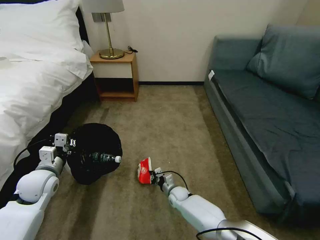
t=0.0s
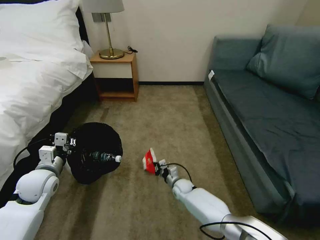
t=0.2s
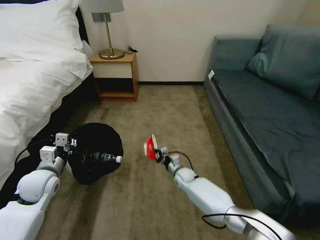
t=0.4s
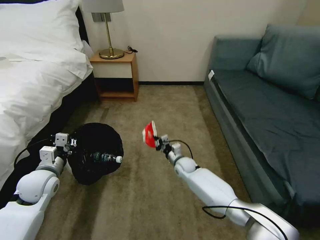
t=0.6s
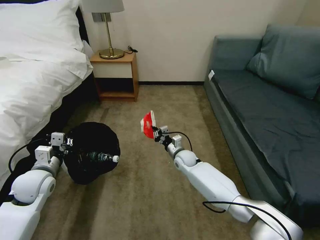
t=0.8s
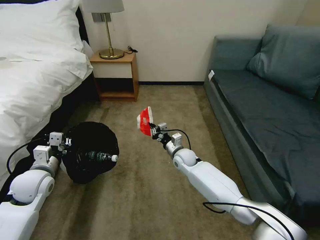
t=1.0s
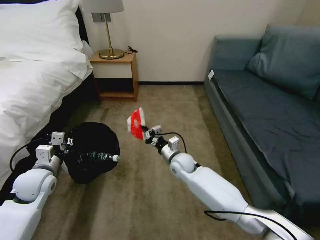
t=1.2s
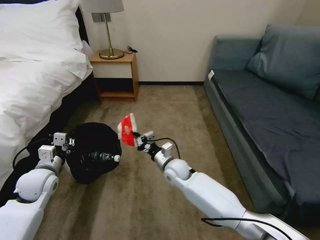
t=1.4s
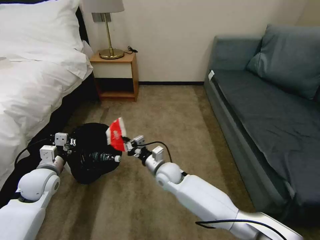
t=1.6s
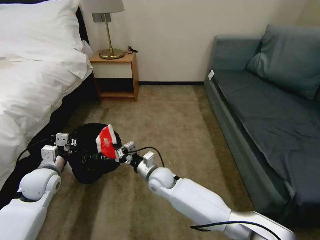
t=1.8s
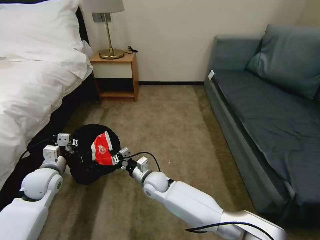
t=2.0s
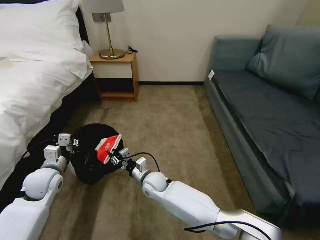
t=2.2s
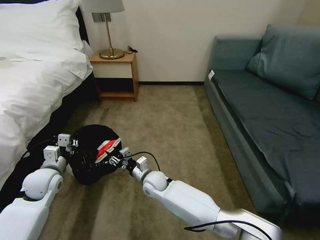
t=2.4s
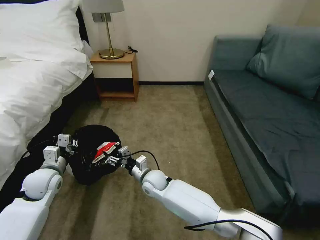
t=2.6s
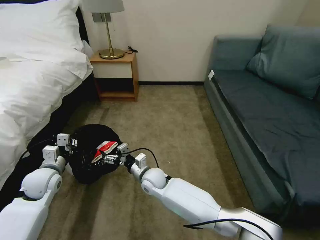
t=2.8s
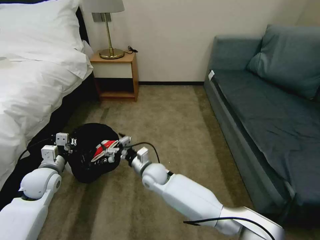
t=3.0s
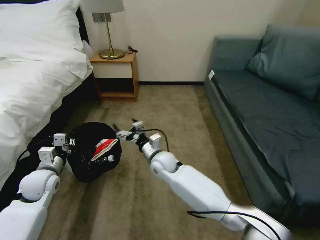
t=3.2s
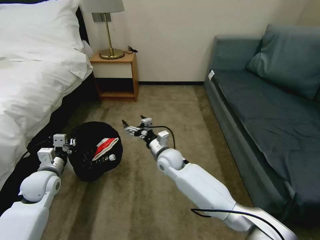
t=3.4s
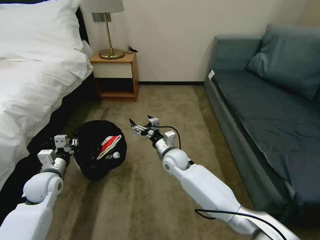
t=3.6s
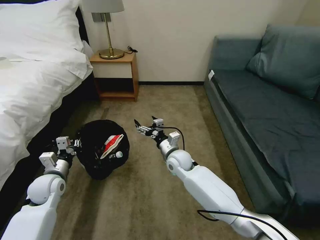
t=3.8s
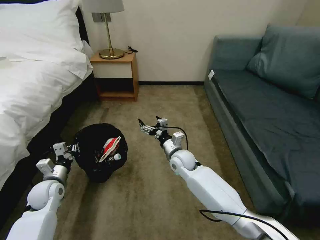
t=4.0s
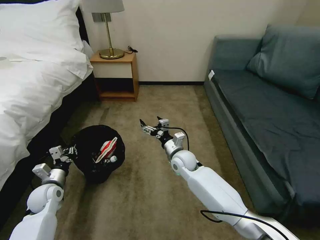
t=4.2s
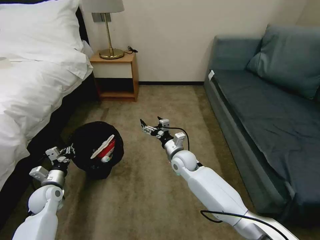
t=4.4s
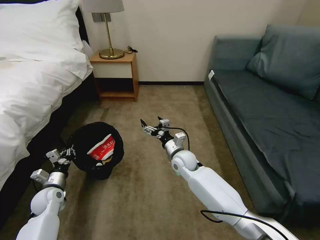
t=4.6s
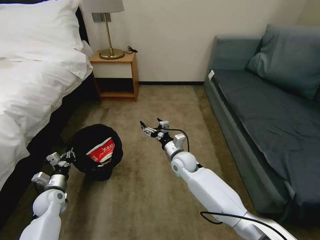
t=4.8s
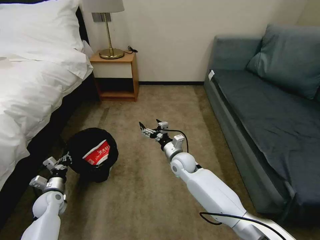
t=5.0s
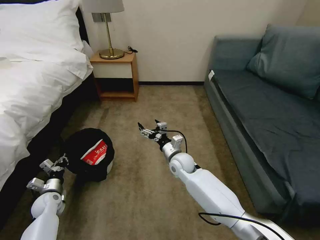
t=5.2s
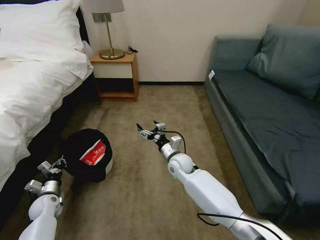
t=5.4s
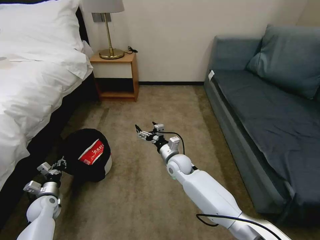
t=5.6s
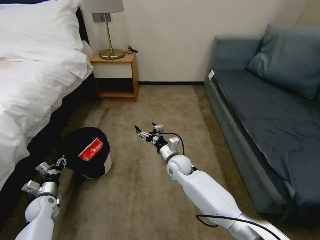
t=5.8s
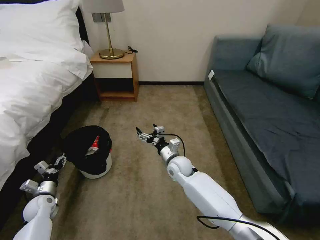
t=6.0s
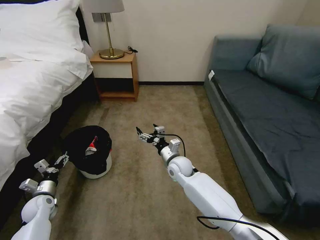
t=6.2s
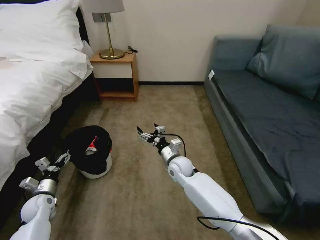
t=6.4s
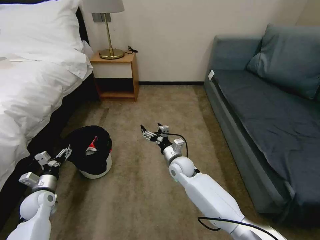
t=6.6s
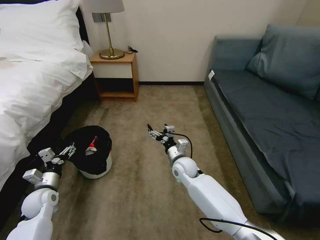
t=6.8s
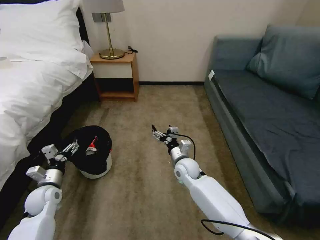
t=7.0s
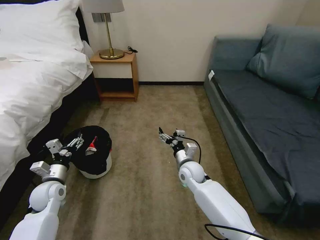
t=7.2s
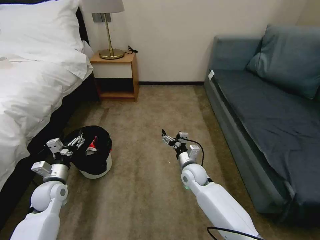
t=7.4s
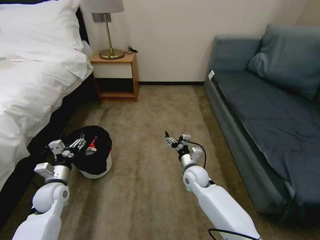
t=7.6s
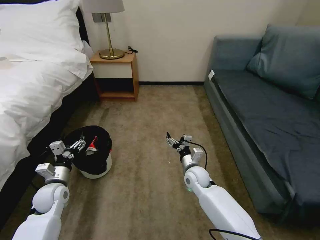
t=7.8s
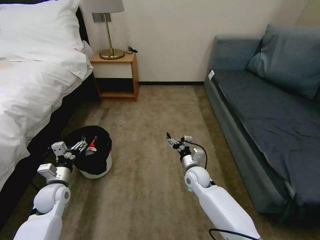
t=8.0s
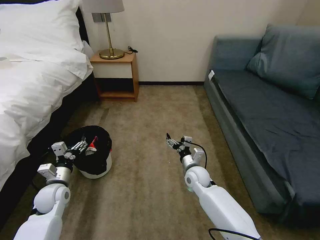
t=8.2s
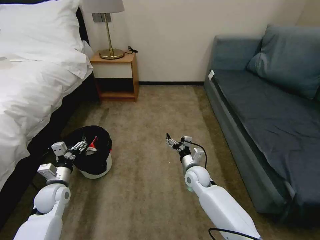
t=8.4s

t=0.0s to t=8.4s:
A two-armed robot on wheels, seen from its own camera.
Task of the whole recording: Pick up the trash bin, then pick up the garbage on the floor and place it into the trash bin.
t=0.0s to t=1.4s: The right gripper shifts some 20 cm upward.
t=1.4s to t=2.8s: The right gripper goes roughly 10 cm to the left, and opens.
t=2.8s to t=4.2s: The right gripper shifts some 15 cm to the right and forward. Meanwhile the left gripper shifts approximately 10 cm downward.
t=4.2s to t=5.6s: The left gripper shifts about 10 cm downward and to the left.
t=5.6s to t=7.0s: The left gripper moves upward and to the right, some 10 cm, and opens its fingers.
t=7.0s to t=8.4s: The right gripper shifts by some 5 cm.

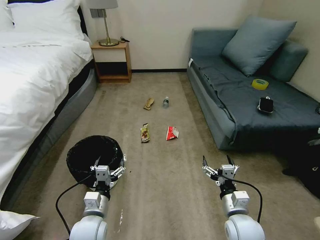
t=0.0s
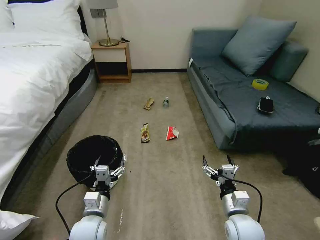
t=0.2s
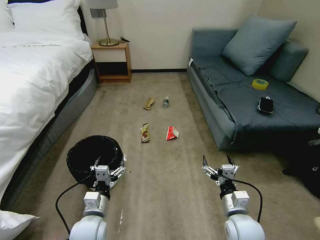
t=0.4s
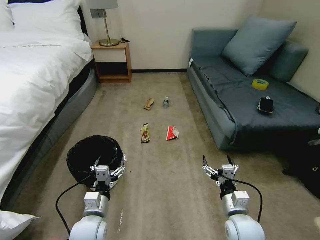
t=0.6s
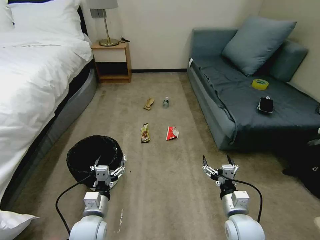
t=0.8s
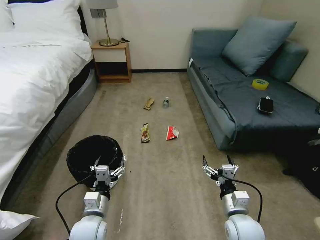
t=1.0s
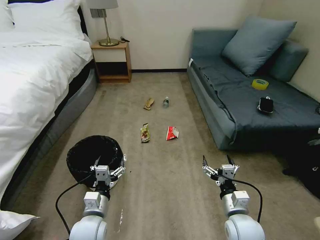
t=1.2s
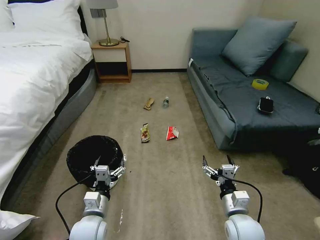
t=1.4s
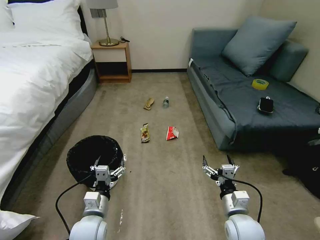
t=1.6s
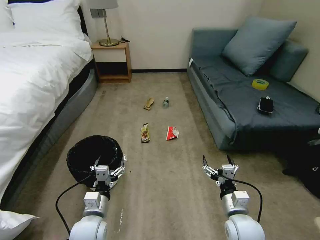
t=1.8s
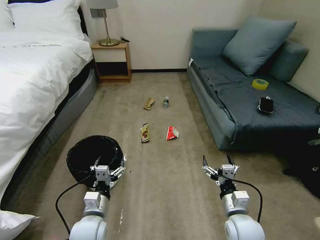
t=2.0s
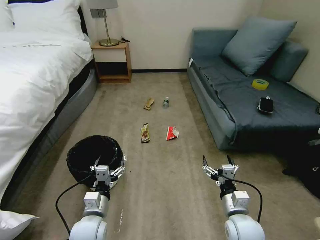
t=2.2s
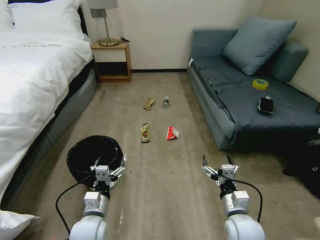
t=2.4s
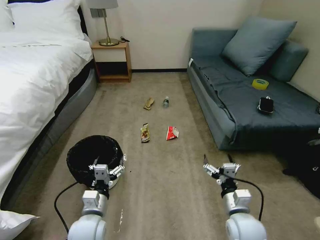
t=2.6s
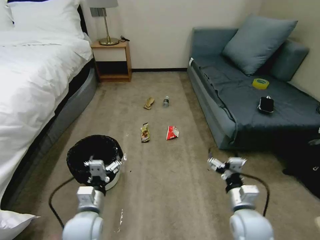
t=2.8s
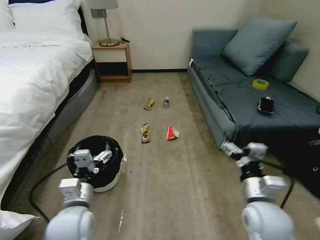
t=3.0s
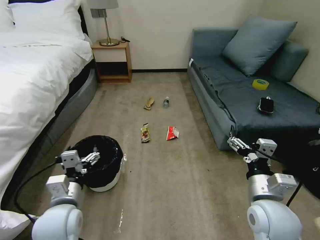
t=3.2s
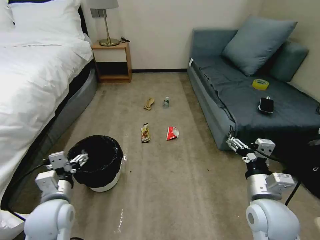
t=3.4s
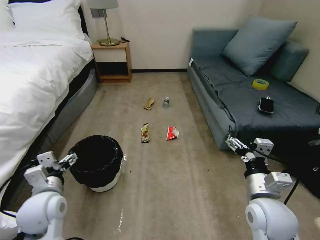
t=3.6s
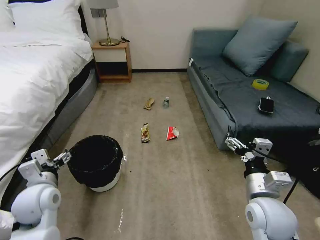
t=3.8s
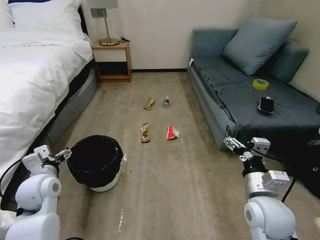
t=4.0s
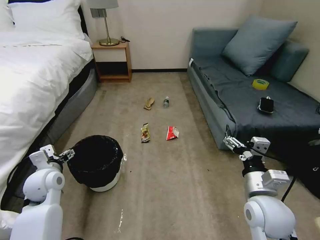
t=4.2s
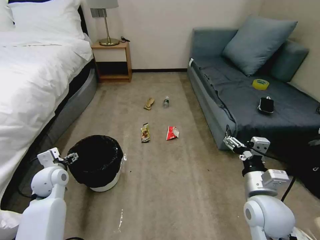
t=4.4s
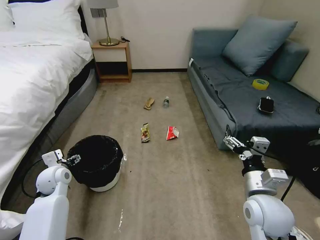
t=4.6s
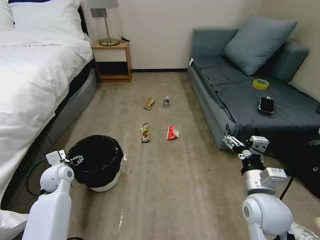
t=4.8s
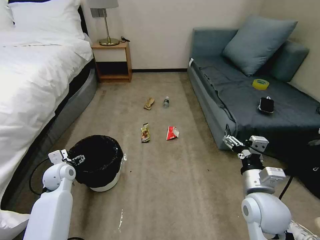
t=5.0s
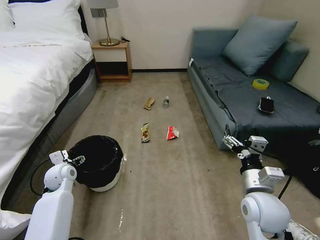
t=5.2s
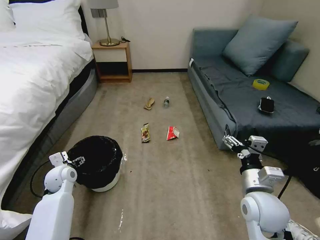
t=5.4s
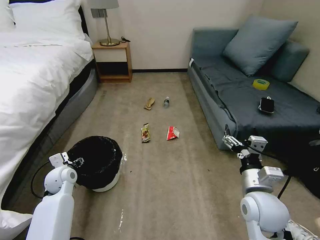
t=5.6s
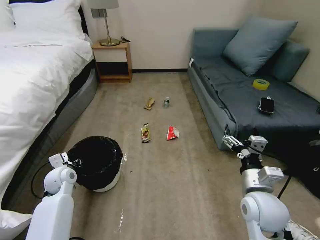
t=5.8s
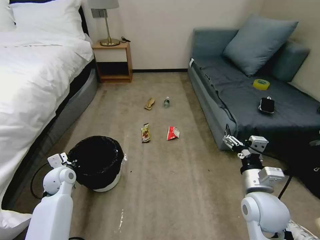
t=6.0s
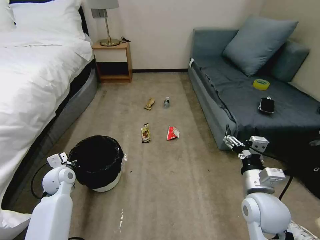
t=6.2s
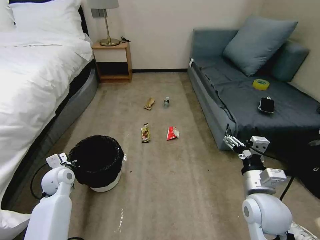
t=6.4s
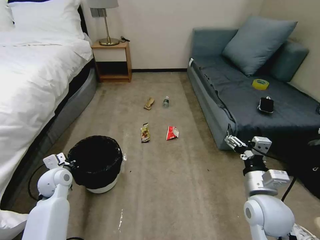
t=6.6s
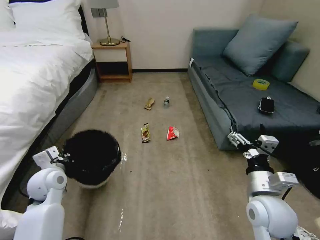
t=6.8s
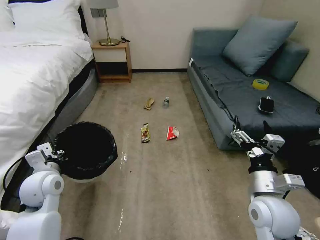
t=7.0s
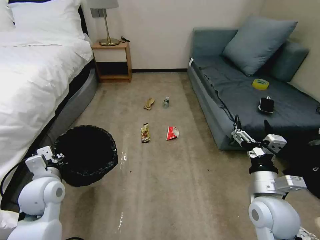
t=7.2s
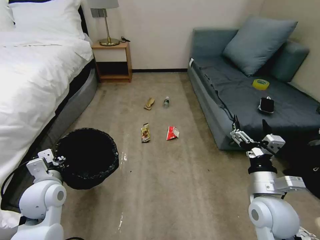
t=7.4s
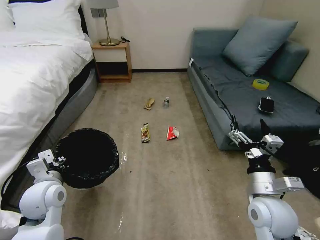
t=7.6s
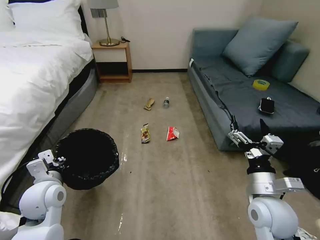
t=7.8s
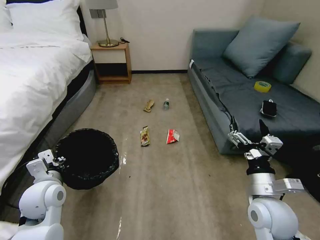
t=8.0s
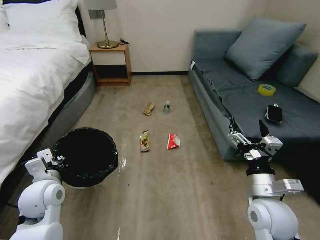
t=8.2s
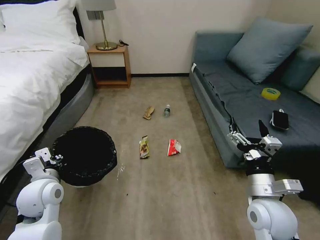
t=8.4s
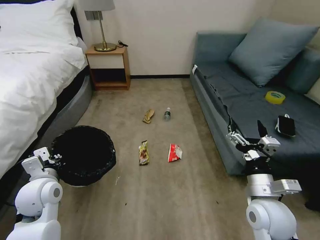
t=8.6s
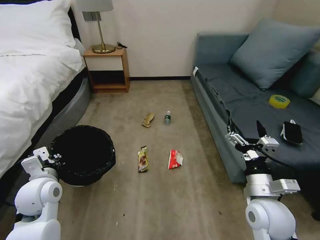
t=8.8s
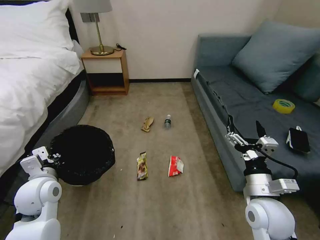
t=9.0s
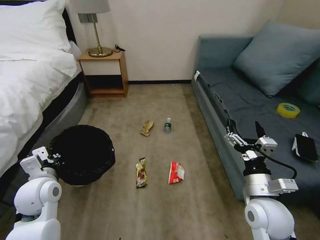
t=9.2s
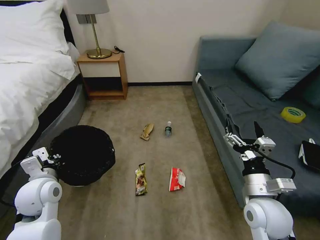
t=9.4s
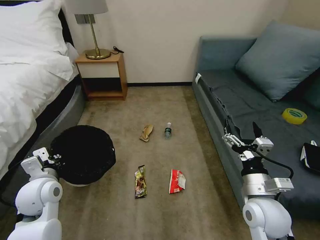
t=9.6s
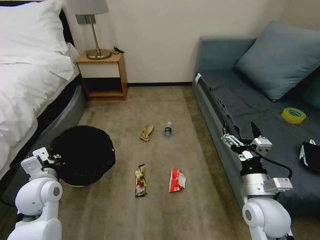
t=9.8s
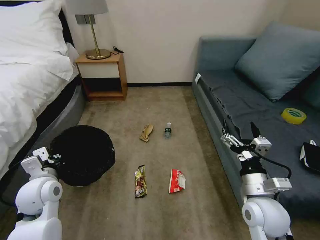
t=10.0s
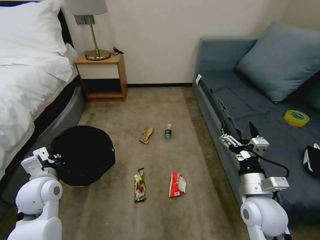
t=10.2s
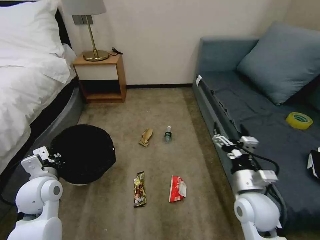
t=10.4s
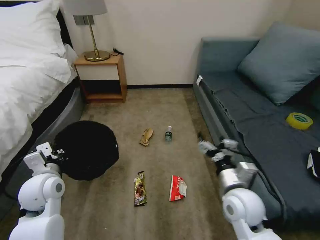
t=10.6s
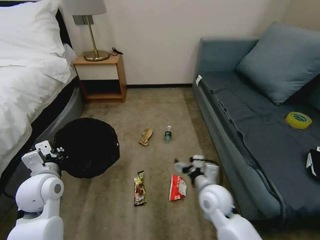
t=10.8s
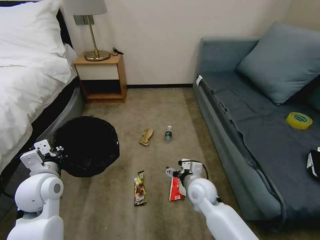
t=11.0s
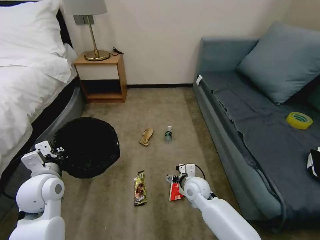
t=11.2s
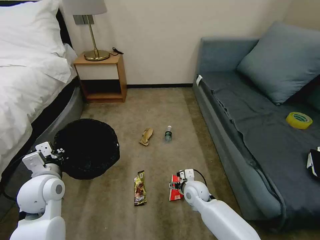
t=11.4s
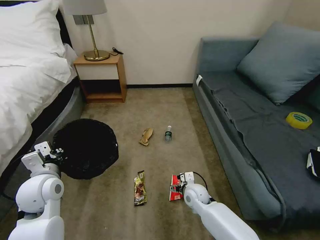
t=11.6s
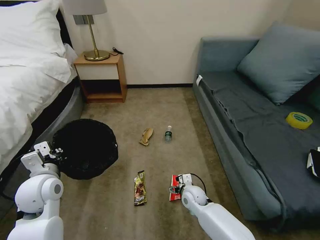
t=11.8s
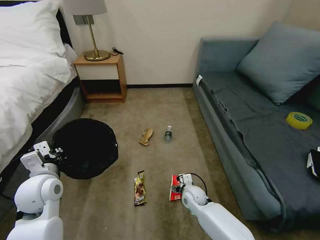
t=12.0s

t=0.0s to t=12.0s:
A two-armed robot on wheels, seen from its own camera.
Task of the whole recording: Pick up the trash bin, then pick up the garbage on the floor and place it into the trash bin.
t=1.6s to t=3.0s: Both grippers move upward, approximately 10 cm.
t=3.0s to t=4.4s: The left gripper moves to the left and forward, roughly 20 cm.
t=4.4s to t=6.0s: The left gripper closes its fingers.
t=6.0s to t=7.6s: The left gripper moves backward and upward, roughly 15 cm.
t=10.4s to t=12.0s: The right gripper goes roughly 25 cm downward, to the left and forward.

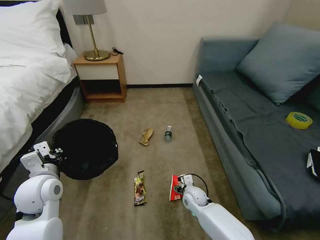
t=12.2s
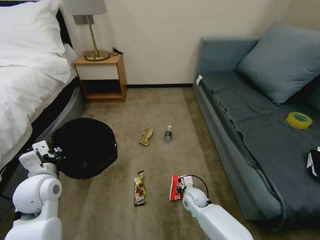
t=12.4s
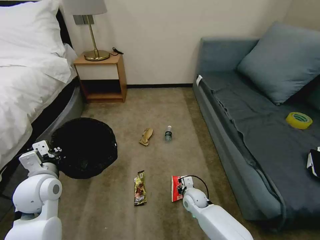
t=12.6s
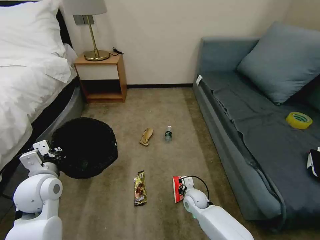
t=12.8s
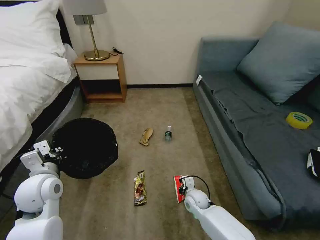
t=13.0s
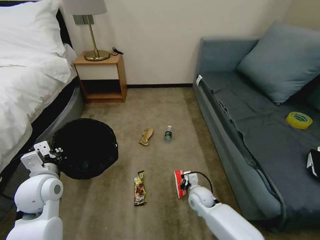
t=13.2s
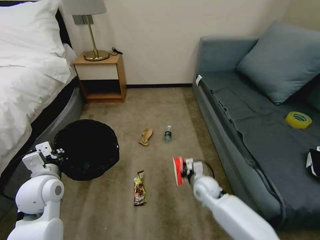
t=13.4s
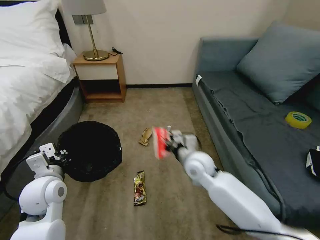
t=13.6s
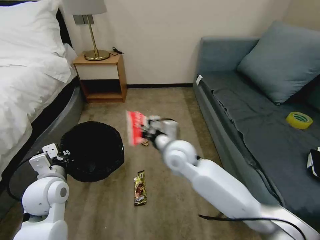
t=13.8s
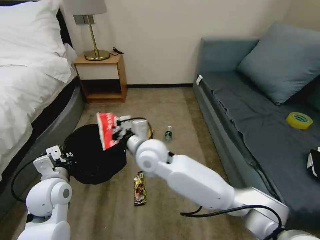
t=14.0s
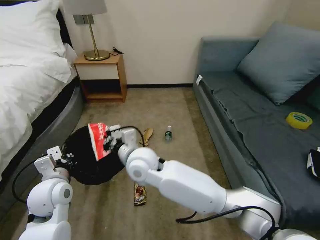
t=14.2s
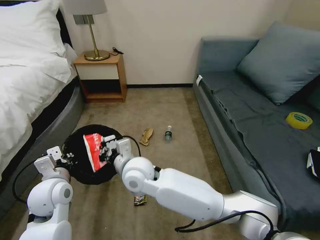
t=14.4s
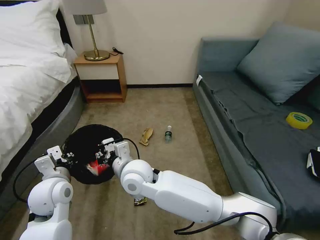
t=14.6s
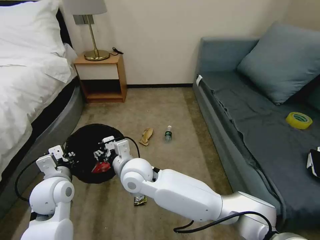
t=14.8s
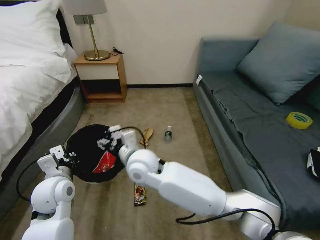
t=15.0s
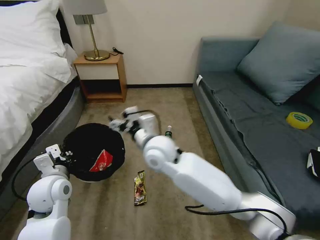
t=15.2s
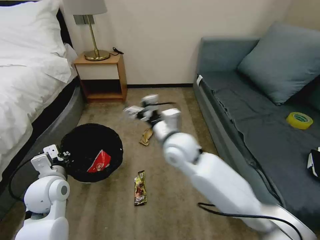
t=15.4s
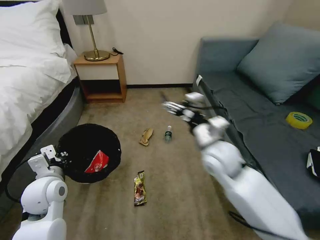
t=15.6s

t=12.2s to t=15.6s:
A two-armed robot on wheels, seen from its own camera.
Task of the whole recording: Pick up the trash bin, then pick up the garbage on the floor and place it into the trash bin.
t=12.2s to t=13.8s: The right gripper goes about 30 cm upward, and closes.
t=13.8s to t=15.6s: The right gripper heads to the right, covering roughly 15 cm, and opens.
